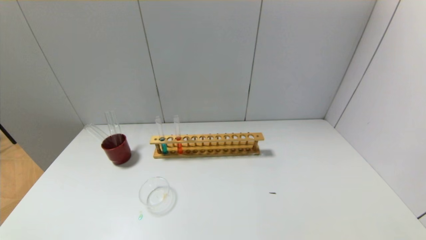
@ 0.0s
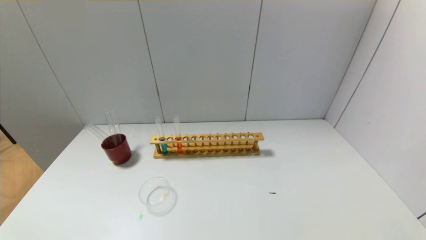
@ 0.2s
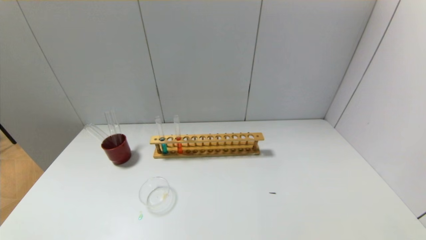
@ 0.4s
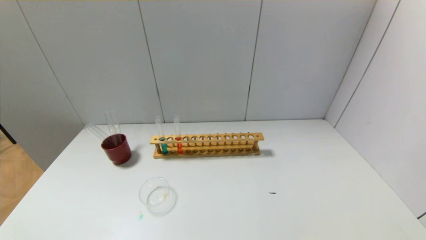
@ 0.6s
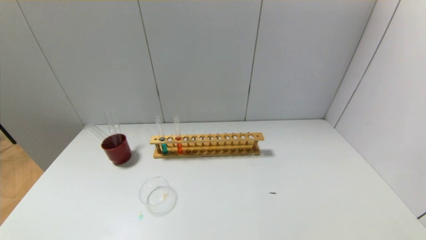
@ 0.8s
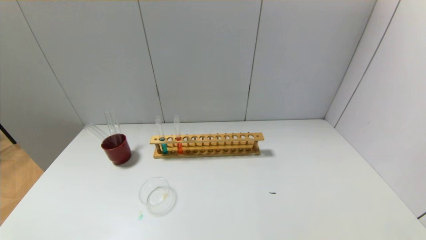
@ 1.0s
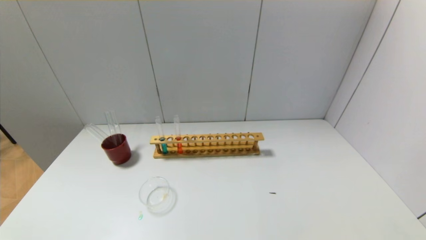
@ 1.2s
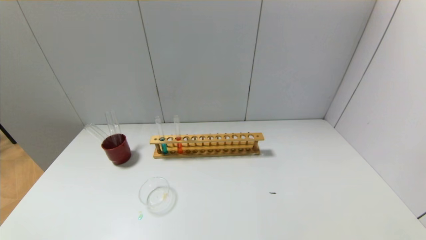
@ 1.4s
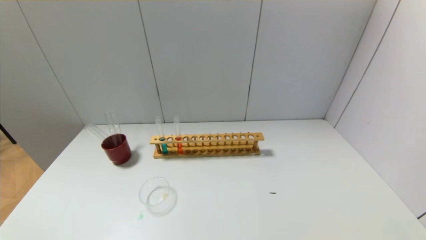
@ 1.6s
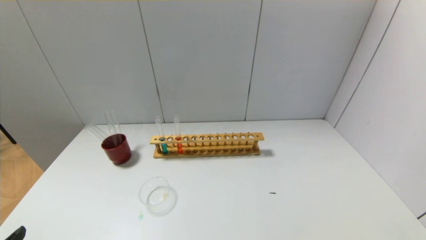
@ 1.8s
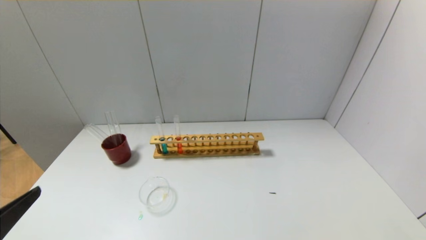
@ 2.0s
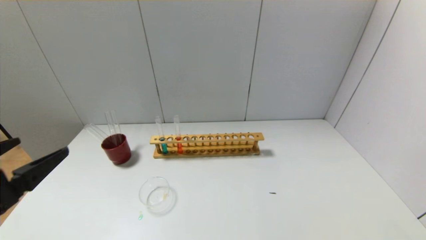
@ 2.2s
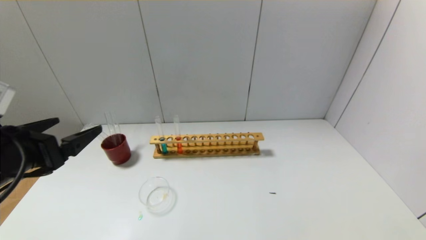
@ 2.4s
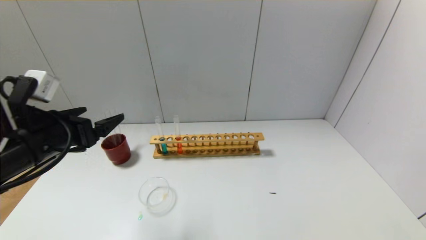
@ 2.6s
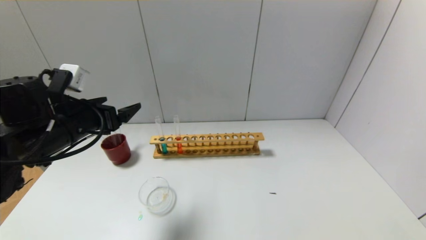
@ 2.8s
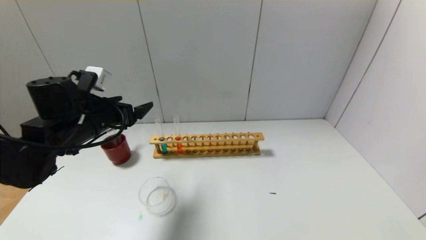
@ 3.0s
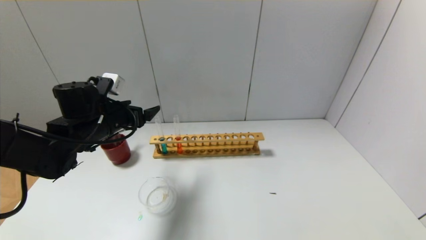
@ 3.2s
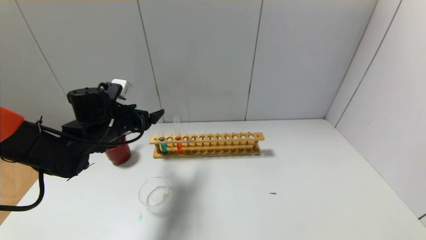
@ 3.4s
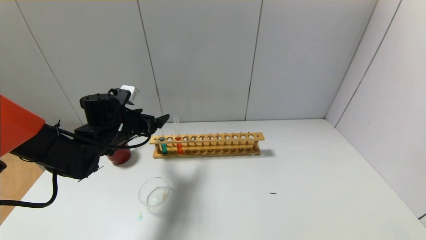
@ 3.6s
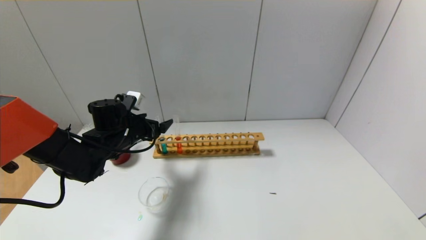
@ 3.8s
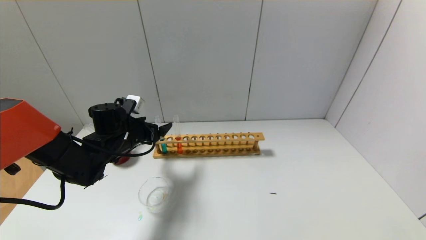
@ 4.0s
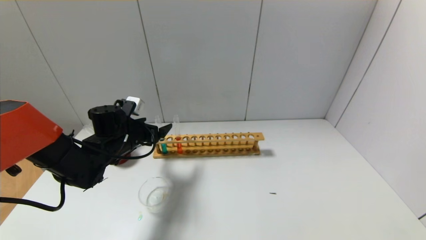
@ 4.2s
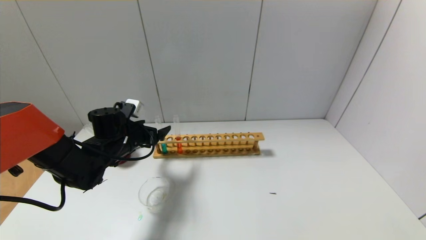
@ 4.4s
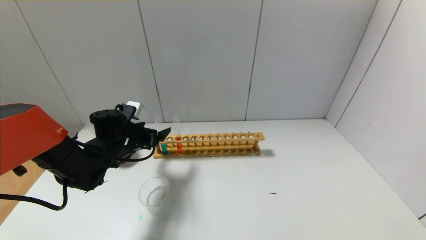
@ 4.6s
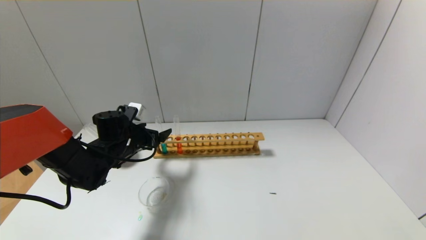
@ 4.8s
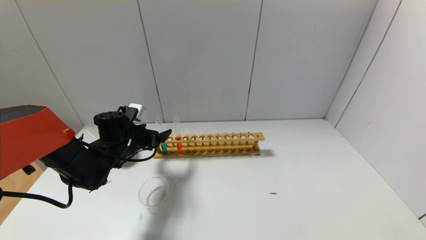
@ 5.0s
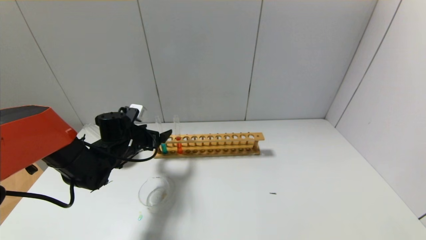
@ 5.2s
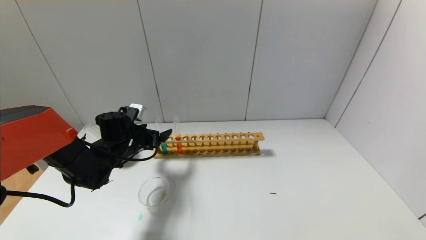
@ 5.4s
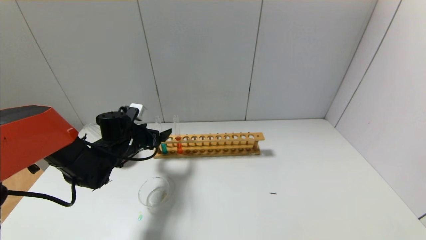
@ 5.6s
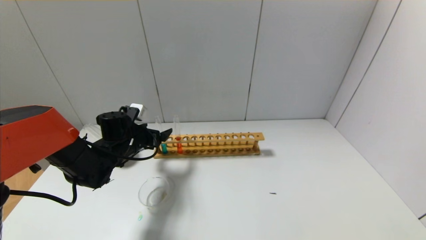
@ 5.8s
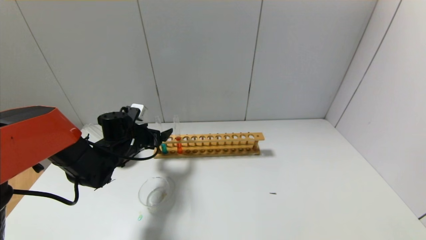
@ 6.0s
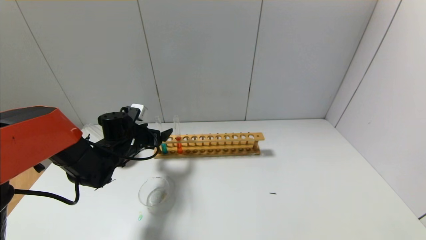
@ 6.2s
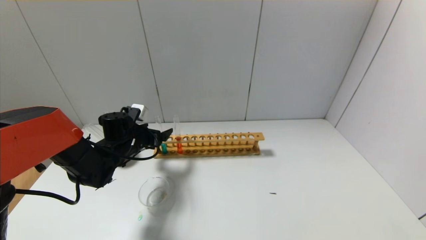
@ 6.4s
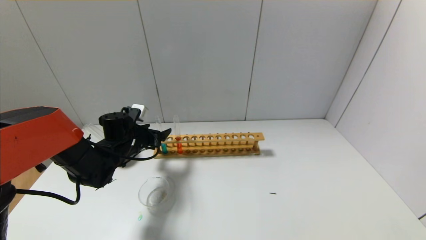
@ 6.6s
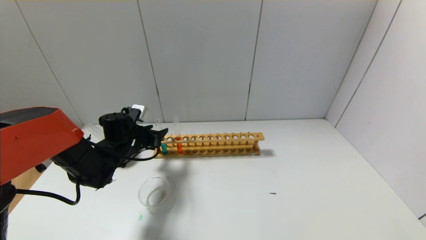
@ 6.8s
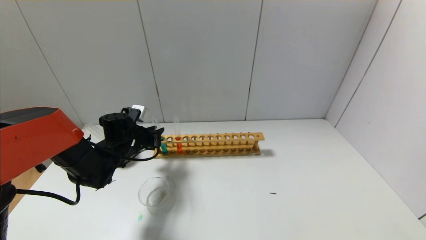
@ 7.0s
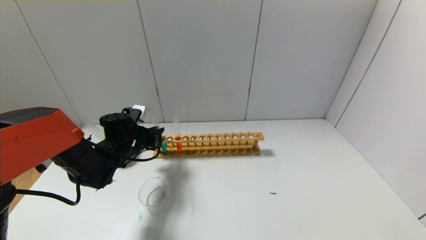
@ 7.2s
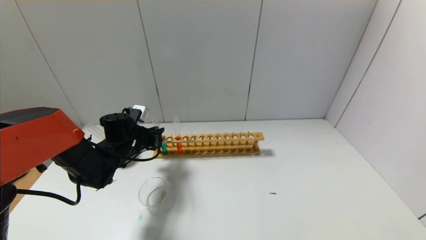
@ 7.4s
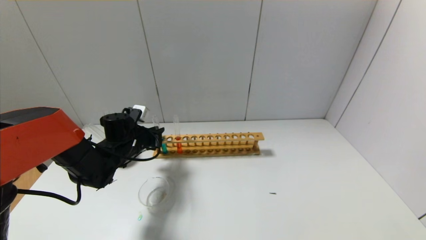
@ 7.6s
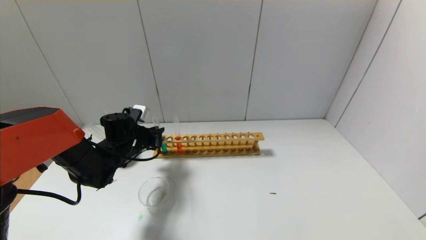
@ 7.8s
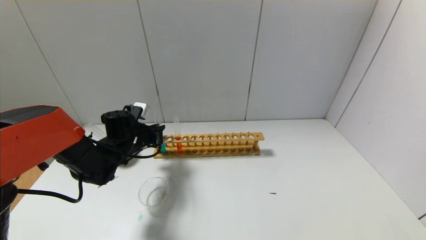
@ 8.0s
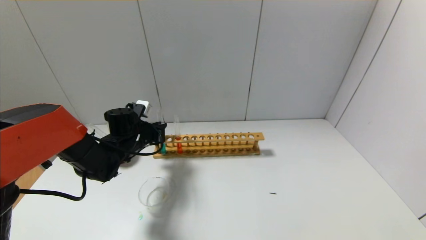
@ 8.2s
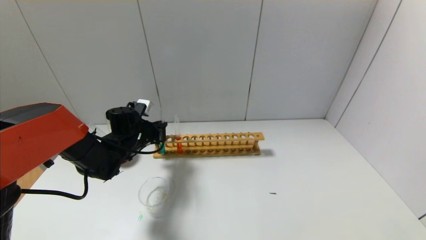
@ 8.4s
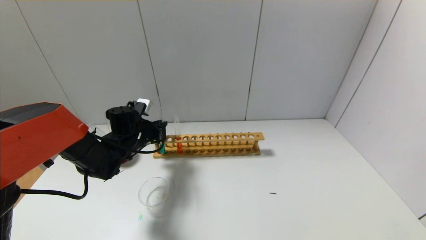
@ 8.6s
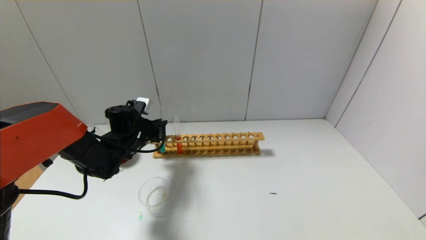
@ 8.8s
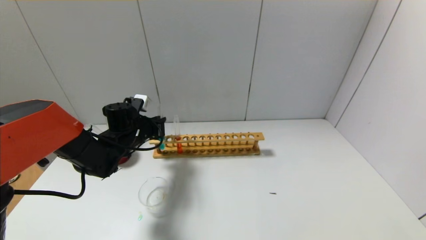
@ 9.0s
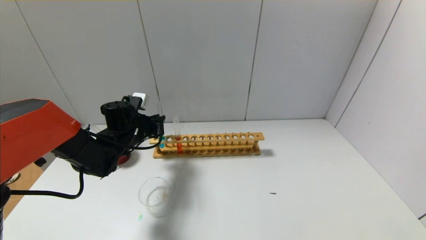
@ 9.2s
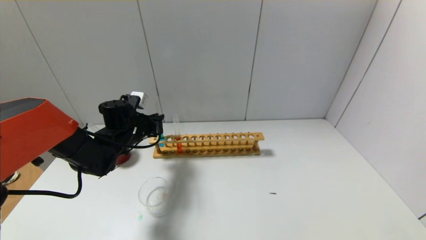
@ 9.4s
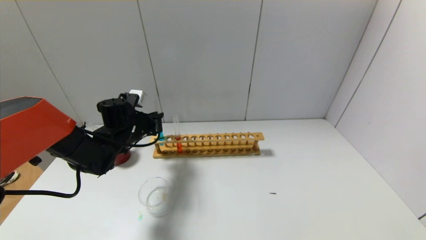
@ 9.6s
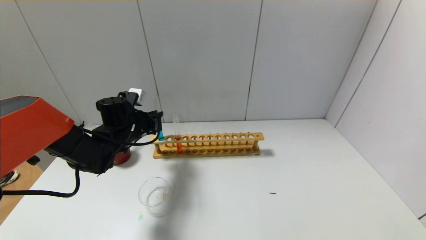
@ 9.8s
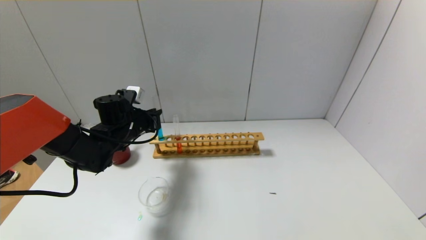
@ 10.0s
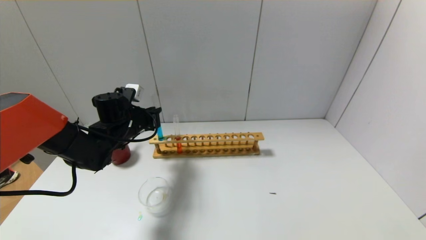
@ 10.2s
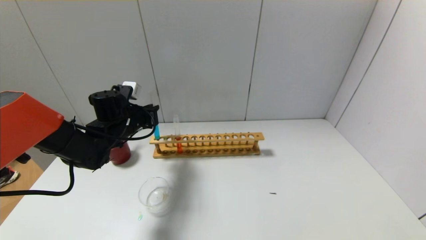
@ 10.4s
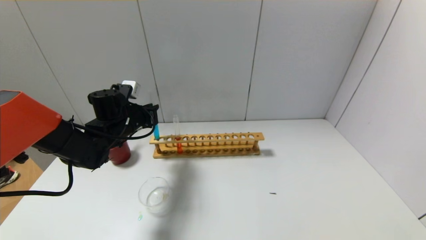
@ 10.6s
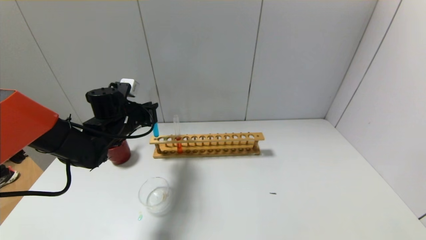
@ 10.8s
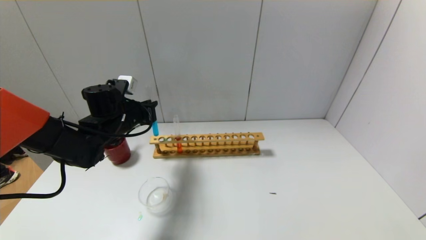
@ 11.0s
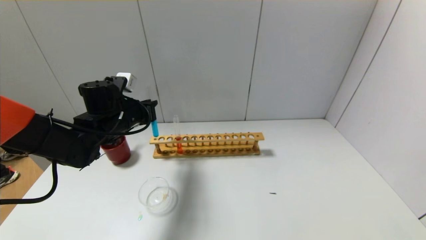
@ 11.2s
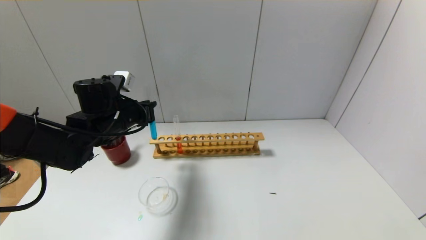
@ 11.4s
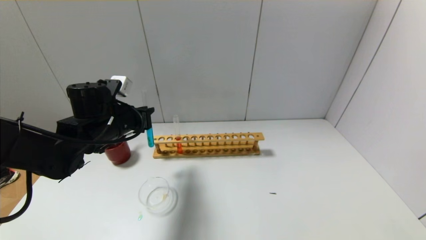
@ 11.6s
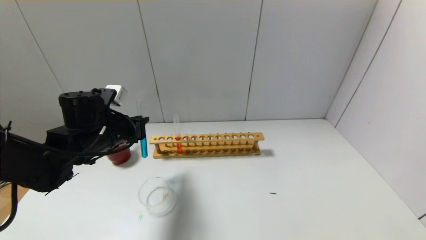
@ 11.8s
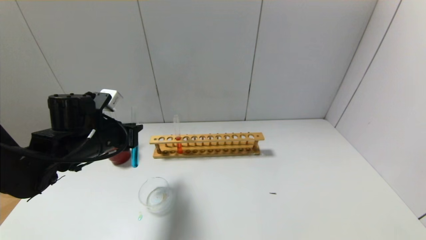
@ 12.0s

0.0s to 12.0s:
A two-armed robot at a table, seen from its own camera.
Step, 0.0s to 7.2s: Grasp the blue reagent with the left gripper.
1.6s to 3.0s: The left gripper heads forward, covering approximately 35 cm.
3.0s to 4.4s: The left gripper shifts about 10 cm downward and forward.
4.4s to 6.0s: The grippers make only small movements.
6.0s to 7.6s: The left gripper closes.
7.6s to 10.4s: There are only small adjustments of the grippers.
10.4s to 12.0s: The left gripper goes some 10 cm backward.

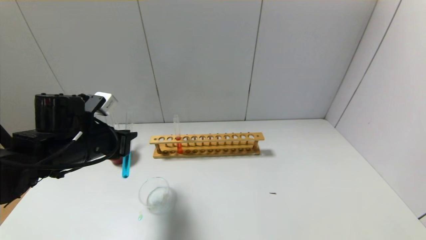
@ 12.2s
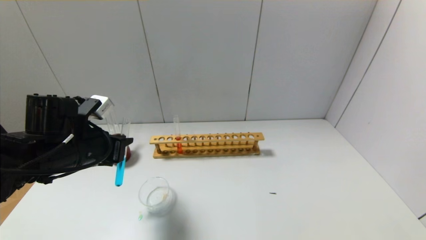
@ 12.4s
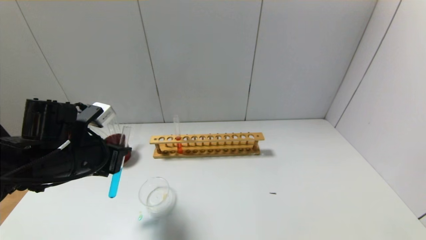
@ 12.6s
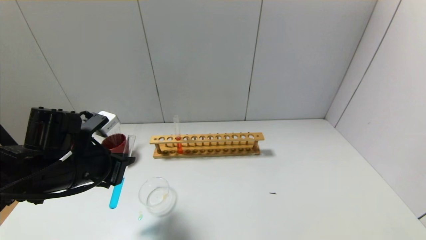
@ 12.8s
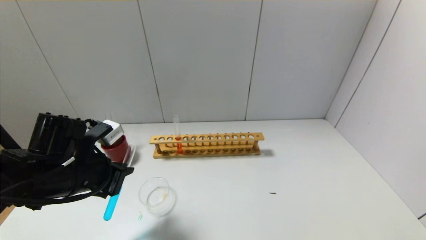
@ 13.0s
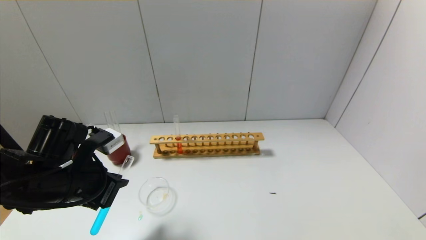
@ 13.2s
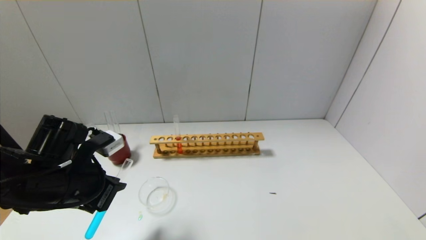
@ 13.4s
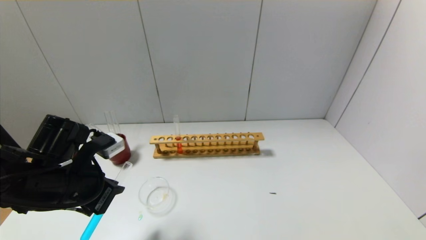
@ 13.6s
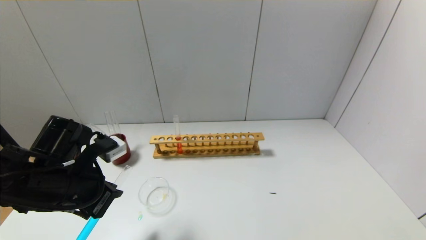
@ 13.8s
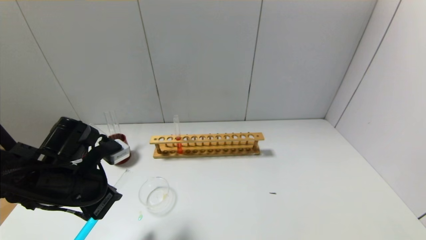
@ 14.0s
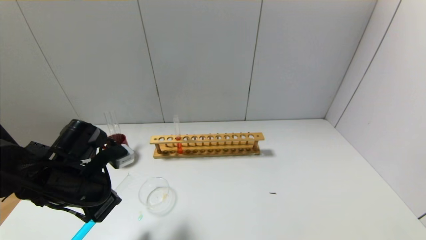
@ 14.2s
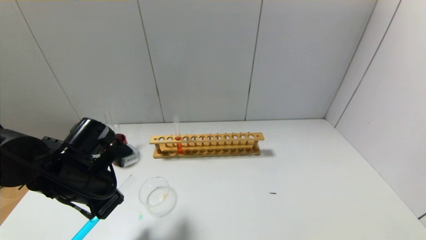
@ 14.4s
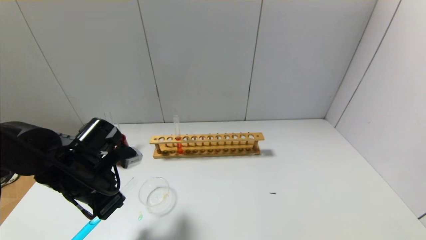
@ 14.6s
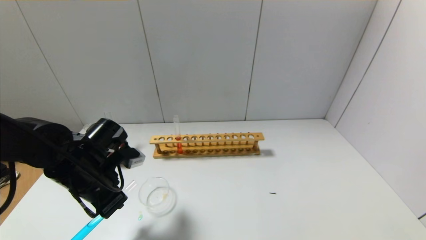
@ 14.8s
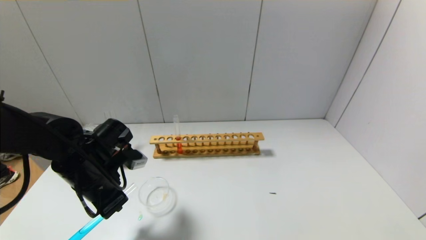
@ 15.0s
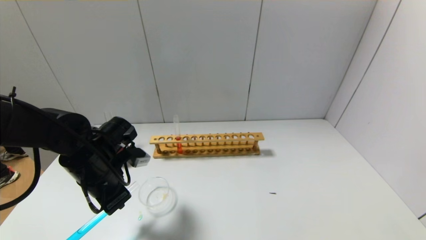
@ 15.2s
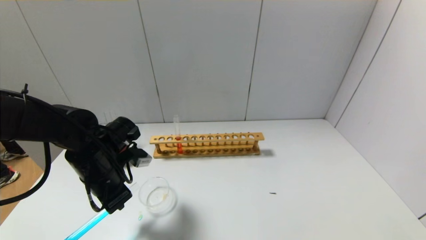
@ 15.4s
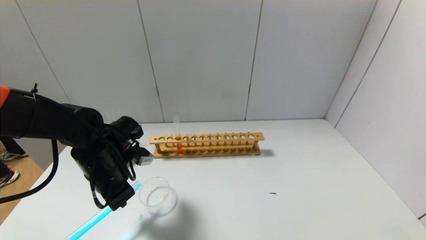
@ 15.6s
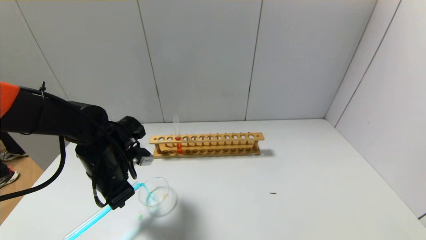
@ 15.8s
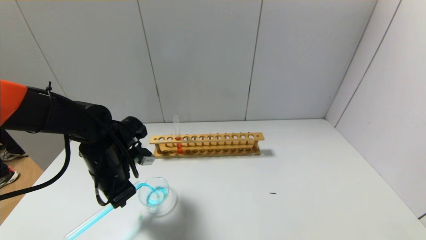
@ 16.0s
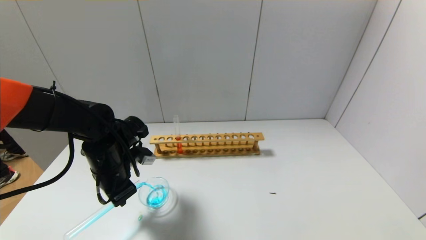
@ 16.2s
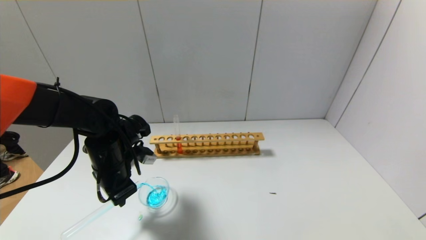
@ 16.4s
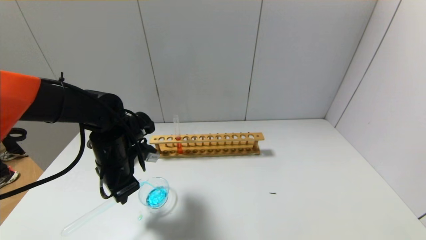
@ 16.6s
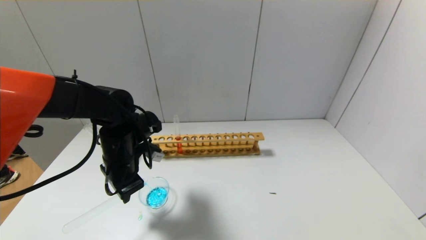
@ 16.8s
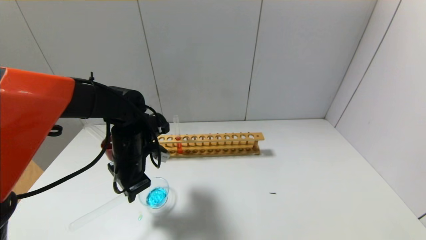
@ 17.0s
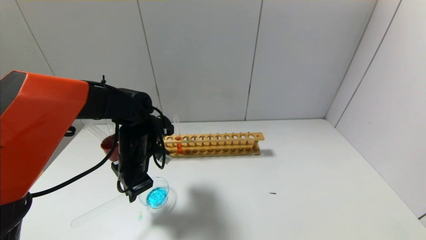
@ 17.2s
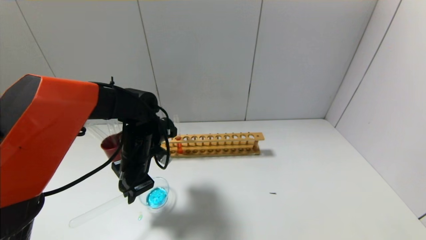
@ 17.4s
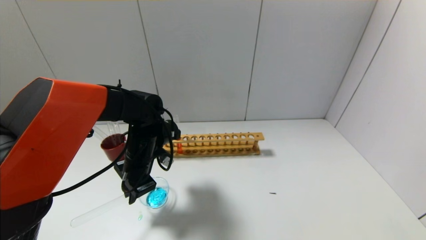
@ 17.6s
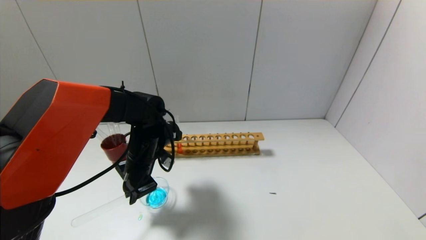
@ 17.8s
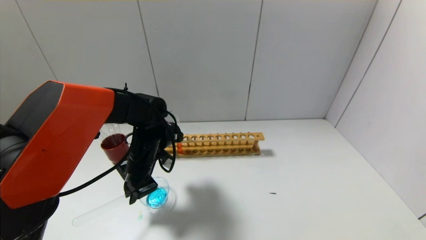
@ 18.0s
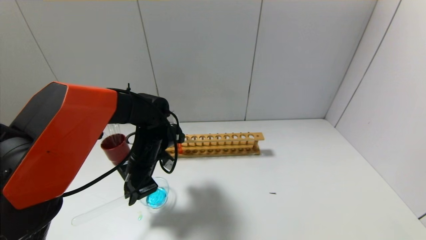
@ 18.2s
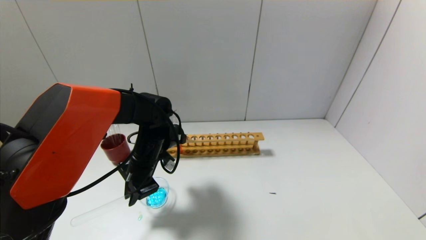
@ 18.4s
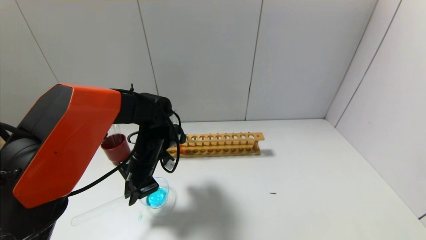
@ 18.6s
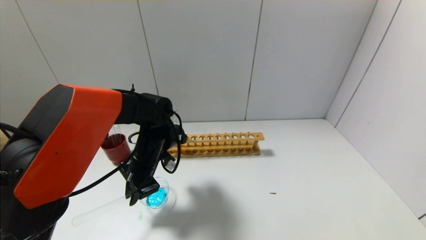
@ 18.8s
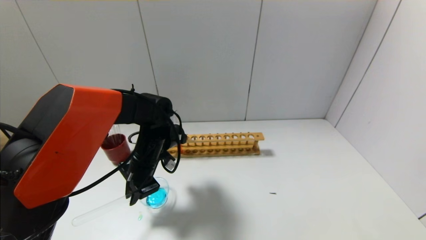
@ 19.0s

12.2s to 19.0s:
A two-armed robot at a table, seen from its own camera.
12.2s to 13.6s: The left gripper heads backward, covering some 5 cm.
13.6s to 15.0s: The left gripper shifts by approximately 5 cm.
15.0s to 16.2s: The grippers make only small movements.
16.2s to 17.6s: The left gripper travels to the right by about 5 cm.
17.6s to 19.0s: The grippers make only small movements.
